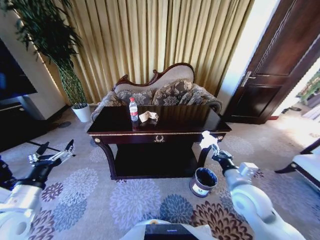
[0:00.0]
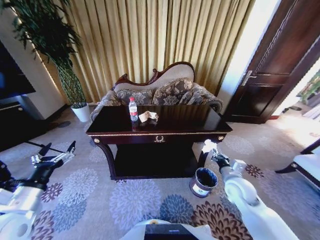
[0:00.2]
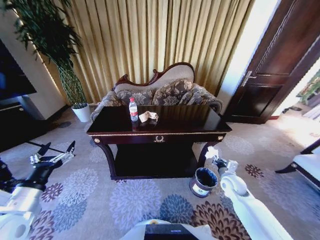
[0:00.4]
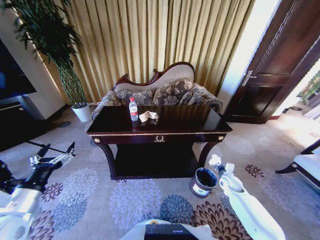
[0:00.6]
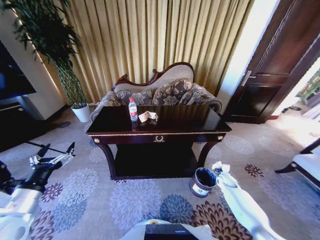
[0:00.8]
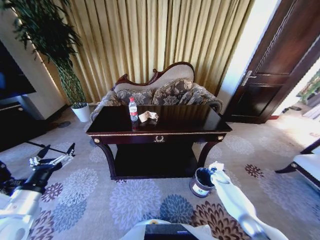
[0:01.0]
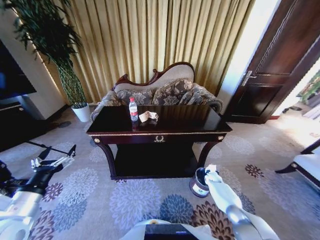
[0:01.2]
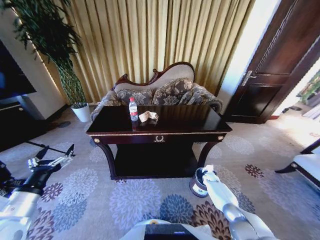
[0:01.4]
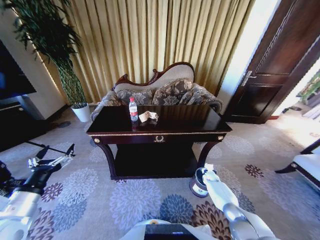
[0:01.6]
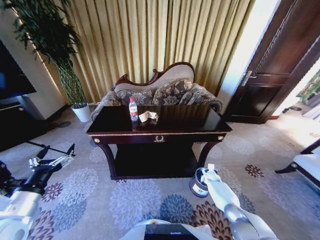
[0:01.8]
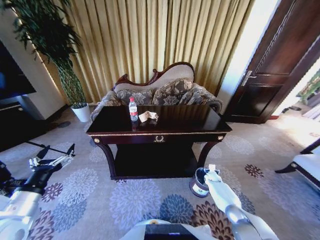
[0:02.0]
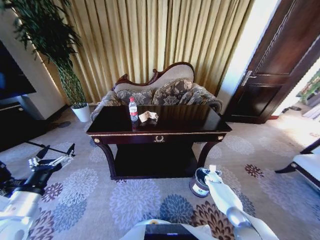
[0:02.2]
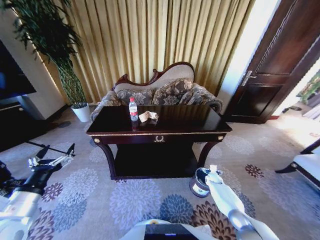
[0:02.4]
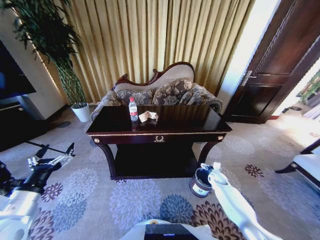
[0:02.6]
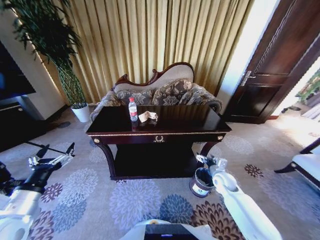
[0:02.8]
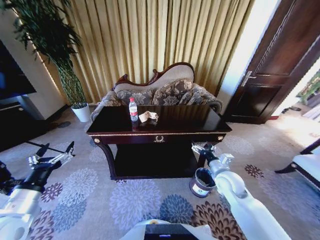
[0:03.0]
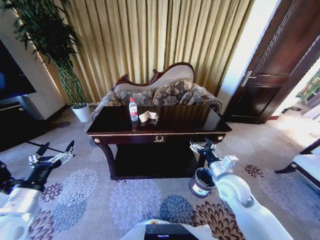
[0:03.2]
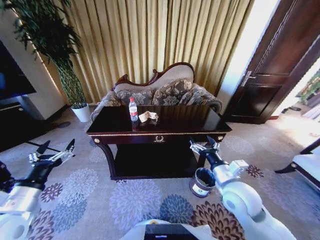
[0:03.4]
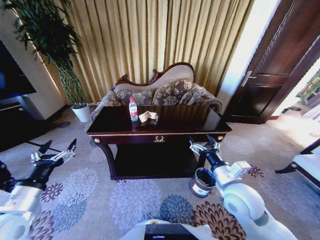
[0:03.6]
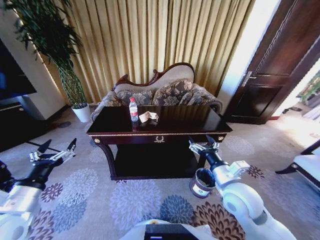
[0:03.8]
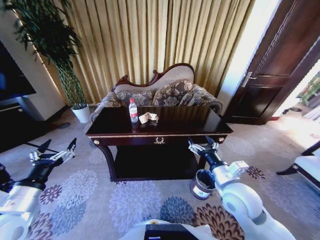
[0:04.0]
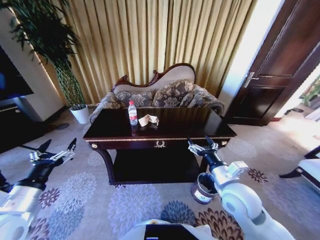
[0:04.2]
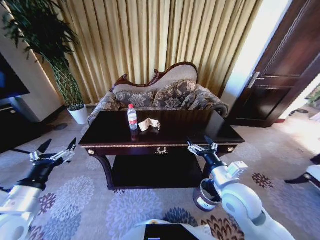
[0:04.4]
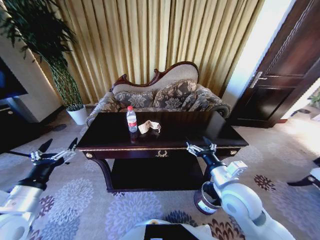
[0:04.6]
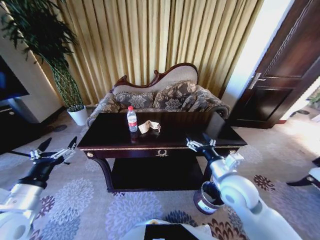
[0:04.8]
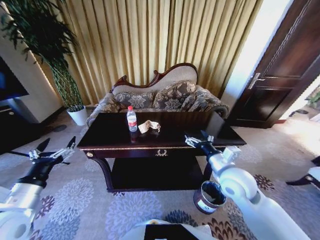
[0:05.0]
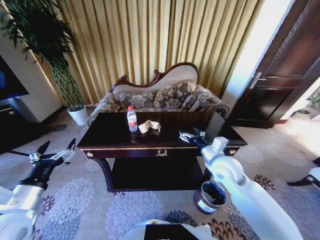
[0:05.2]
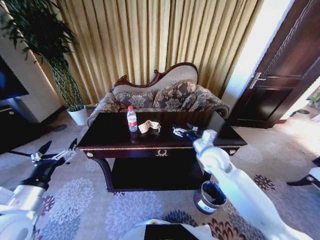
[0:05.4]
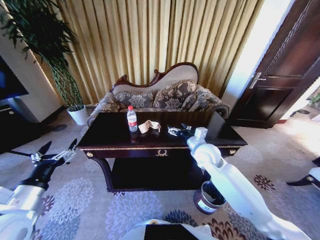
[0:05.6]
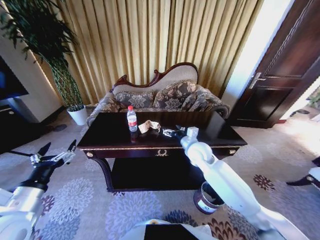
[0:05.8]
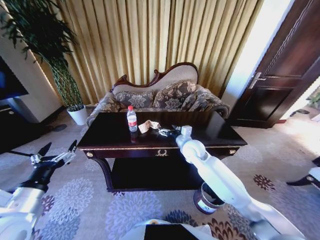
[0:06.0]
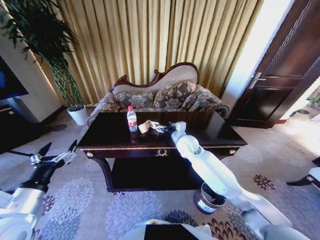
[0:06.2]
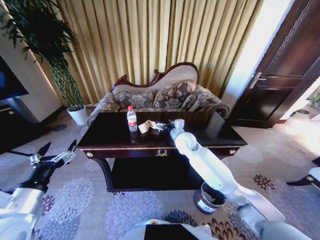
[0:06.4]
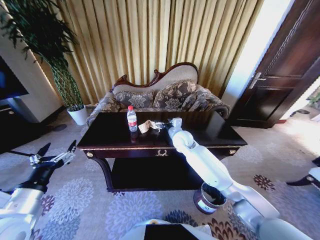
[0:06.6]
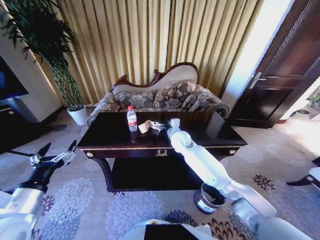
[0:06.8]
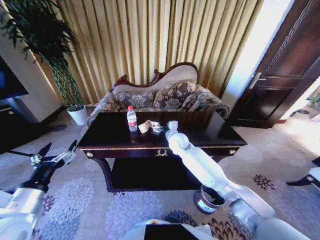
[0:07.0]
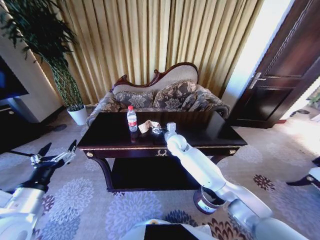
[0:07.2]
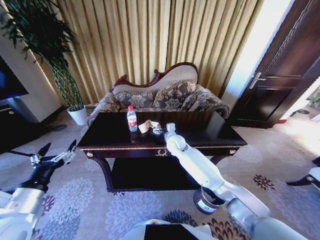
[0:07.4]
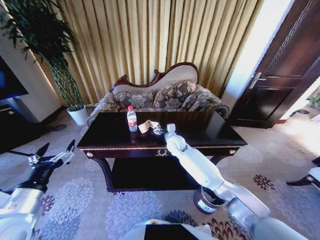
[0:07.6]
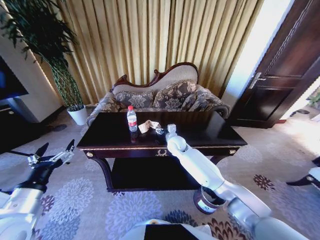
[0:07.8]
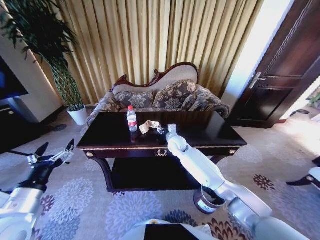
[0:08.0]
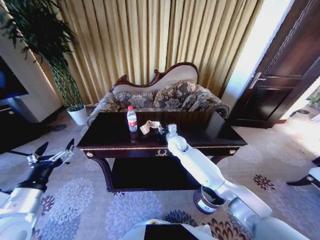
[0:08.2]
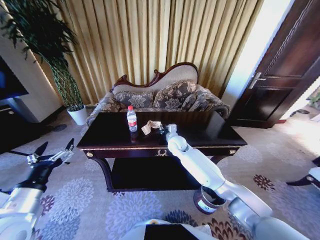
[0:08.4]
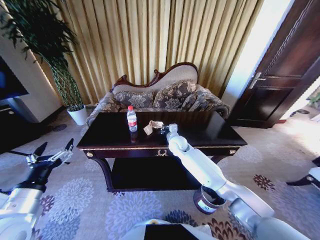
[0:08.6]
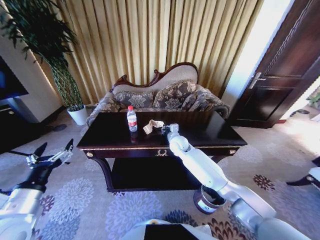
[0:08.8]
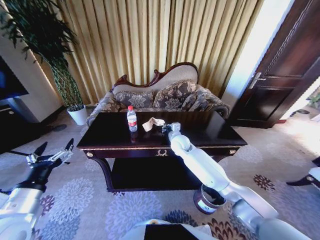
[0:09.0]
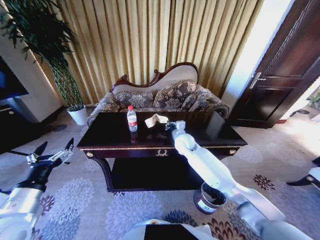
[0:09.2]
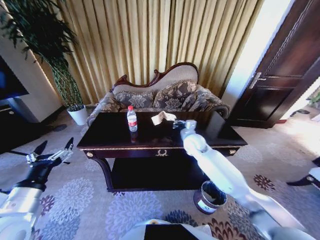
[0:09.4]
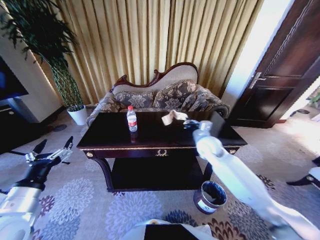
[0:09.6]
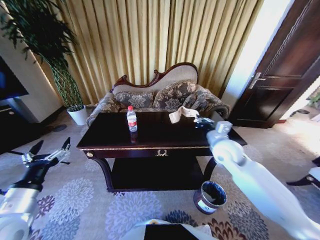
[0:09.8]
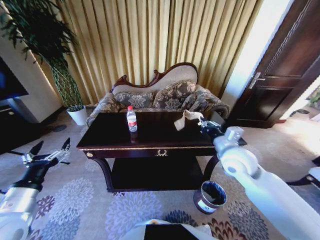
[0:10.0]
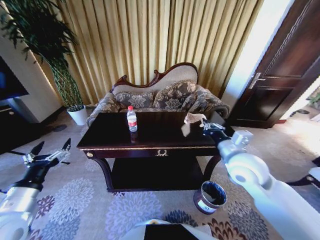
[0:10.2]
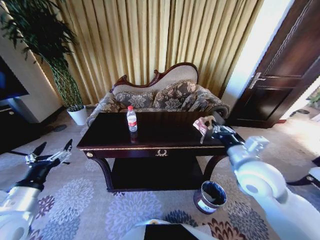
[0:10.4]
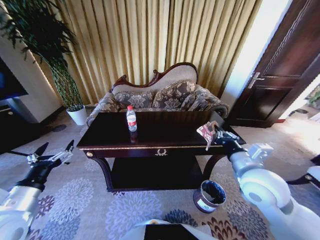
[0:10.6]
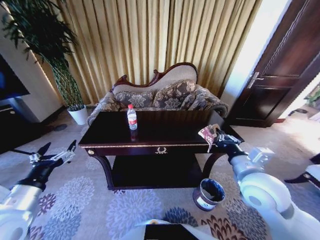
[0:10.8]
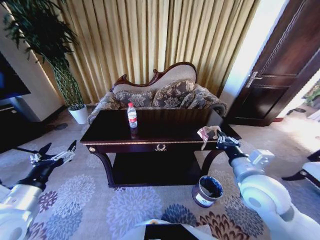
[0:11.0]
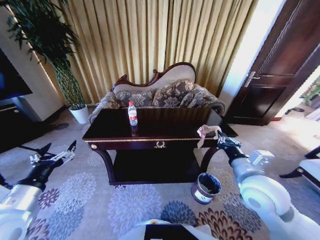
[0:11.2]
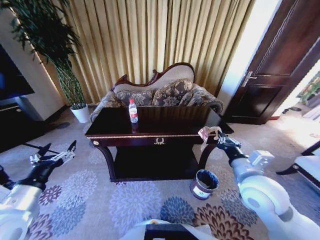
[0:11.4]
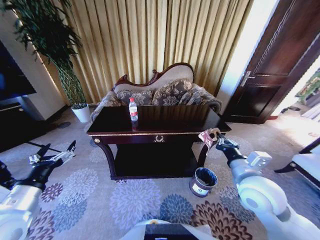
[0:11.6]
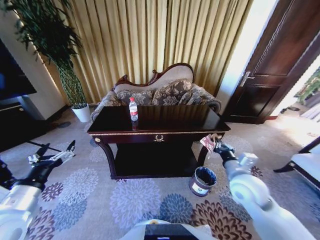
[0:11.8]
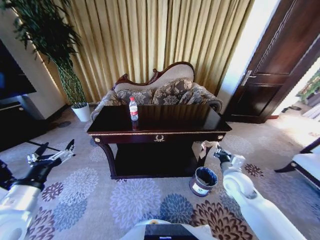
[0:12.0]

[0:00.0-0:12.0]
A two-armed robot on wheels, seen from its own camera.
Task of the whole recording: Move to the front of the table and place the trash on the table into the trash bin.
0:00.0 to 0:01.6: The right gripper is displaced downward and forward by about 40 cm.
0:01.6 to 0:03.0: The right gripper moves upward and backward, about 30 cm, and opens up.
0:03.0 to 0:04.4: The right gripper is displaced upward, backward and to the left by approximately 15 cm.
0:04.4 to 0:06.0: The right gripper travels forward and to the left by about 20 cm.
0:06.0 to 0:07.6: The right gripper heads forward and to the left, covering approximately 10 cm.
0:07.6 to 0:09.0: The right gripper closes.
0:09.0 to 0:10.4: The right gripper moves backward, to the right and upward, roughly 30 cm.
0:10.4 to 0:12.0: The right gripper is displaced downward by approximately 15 cm.

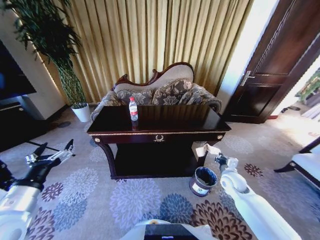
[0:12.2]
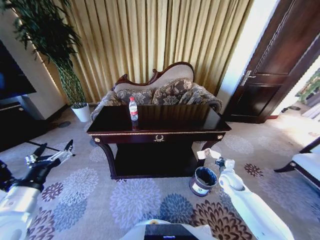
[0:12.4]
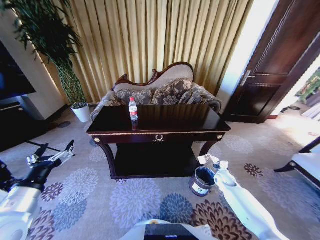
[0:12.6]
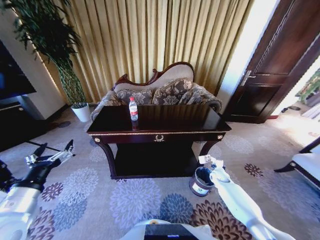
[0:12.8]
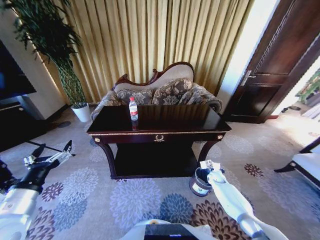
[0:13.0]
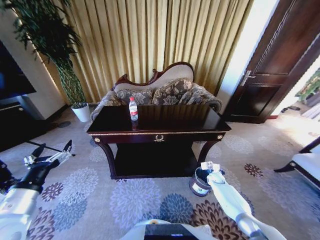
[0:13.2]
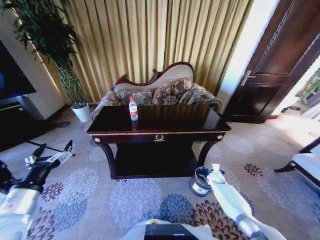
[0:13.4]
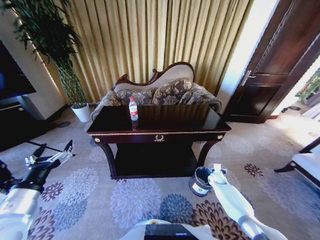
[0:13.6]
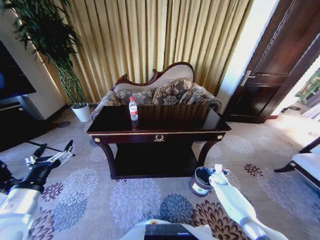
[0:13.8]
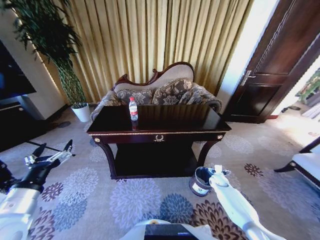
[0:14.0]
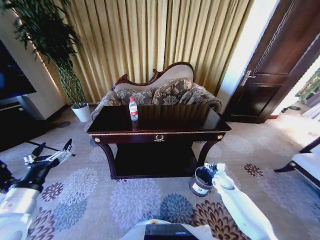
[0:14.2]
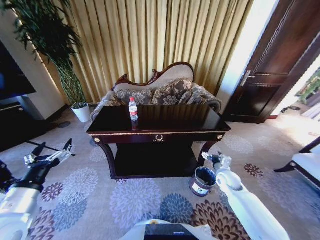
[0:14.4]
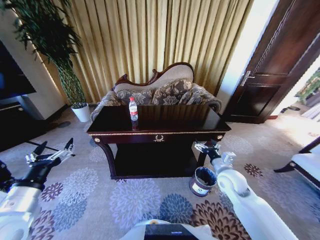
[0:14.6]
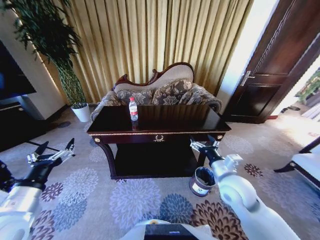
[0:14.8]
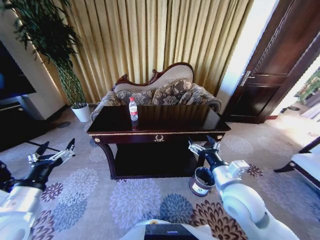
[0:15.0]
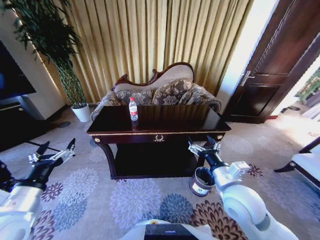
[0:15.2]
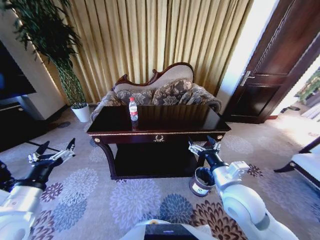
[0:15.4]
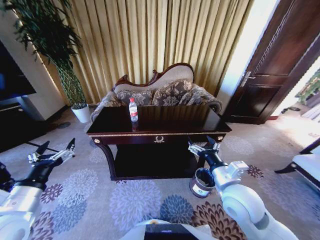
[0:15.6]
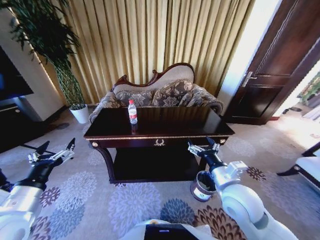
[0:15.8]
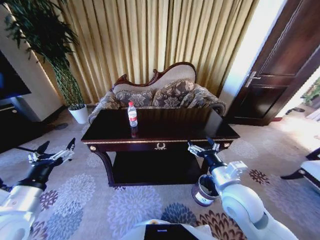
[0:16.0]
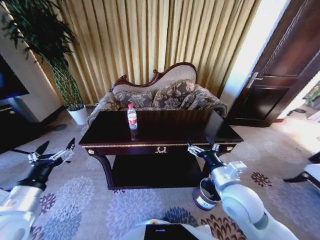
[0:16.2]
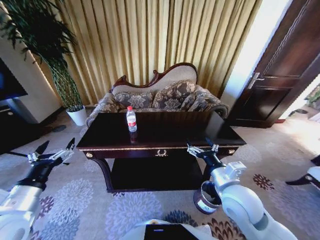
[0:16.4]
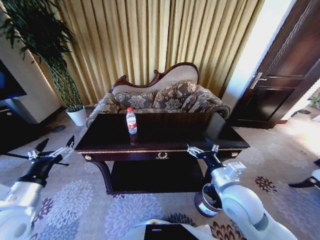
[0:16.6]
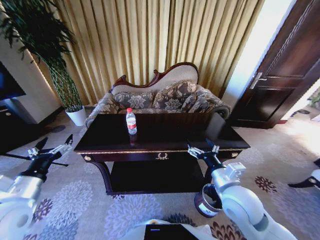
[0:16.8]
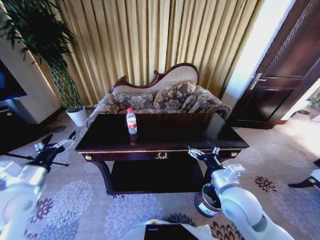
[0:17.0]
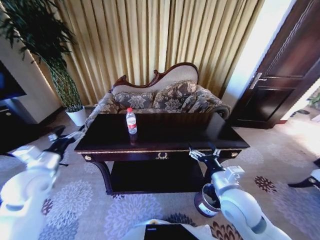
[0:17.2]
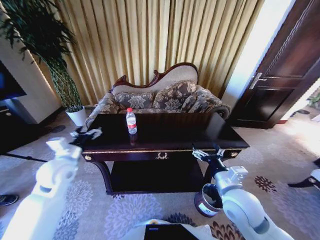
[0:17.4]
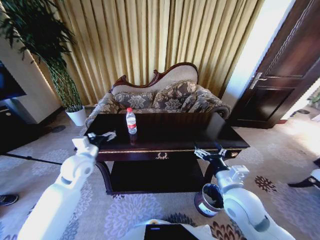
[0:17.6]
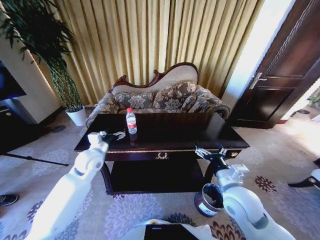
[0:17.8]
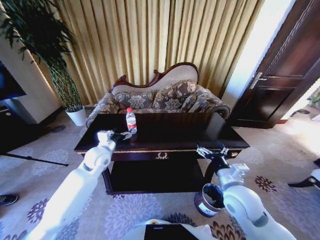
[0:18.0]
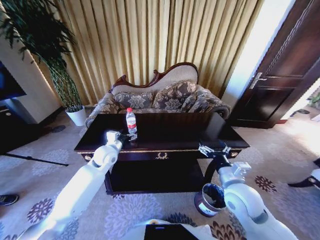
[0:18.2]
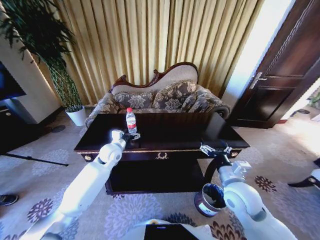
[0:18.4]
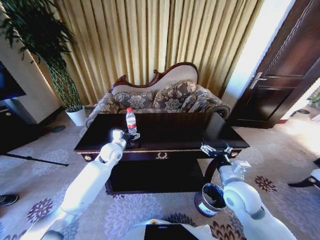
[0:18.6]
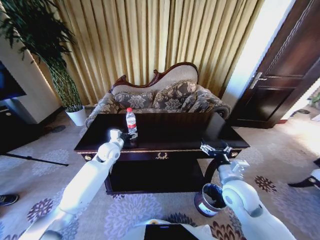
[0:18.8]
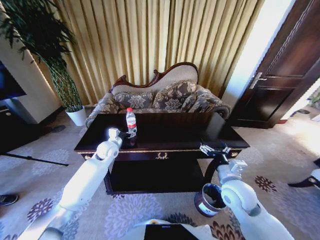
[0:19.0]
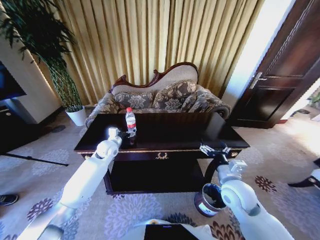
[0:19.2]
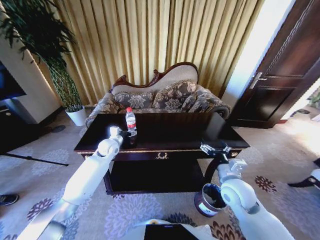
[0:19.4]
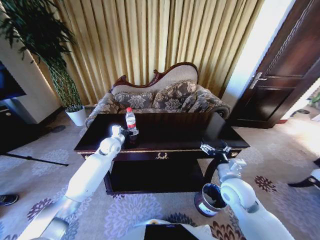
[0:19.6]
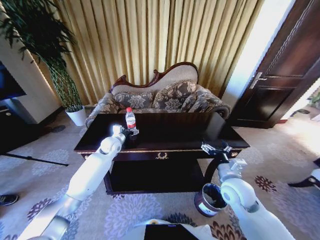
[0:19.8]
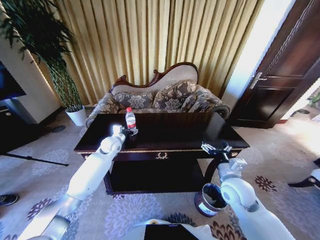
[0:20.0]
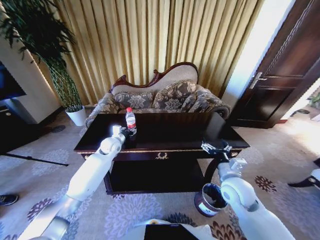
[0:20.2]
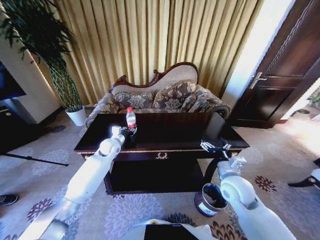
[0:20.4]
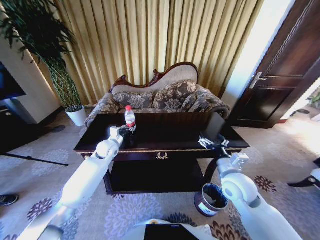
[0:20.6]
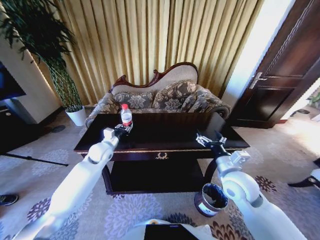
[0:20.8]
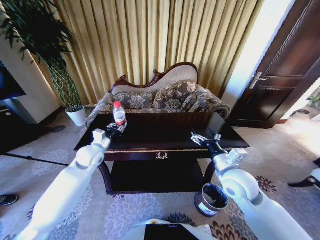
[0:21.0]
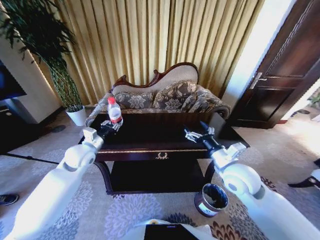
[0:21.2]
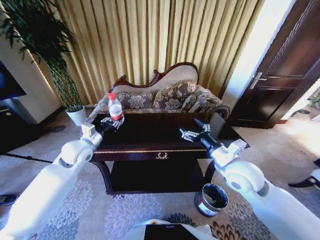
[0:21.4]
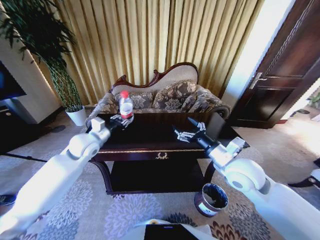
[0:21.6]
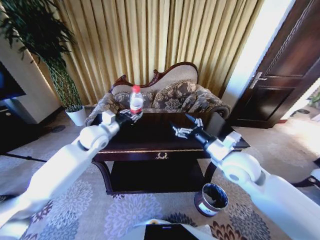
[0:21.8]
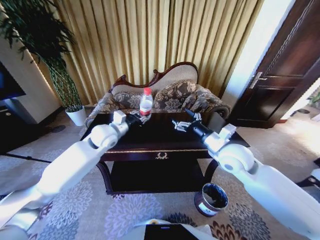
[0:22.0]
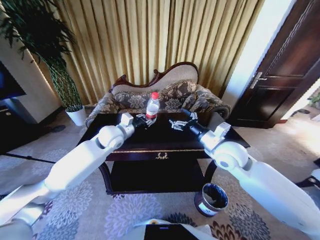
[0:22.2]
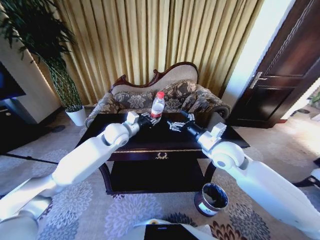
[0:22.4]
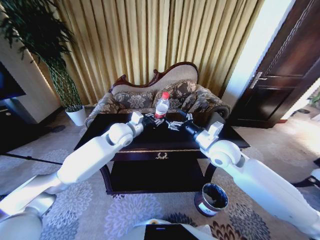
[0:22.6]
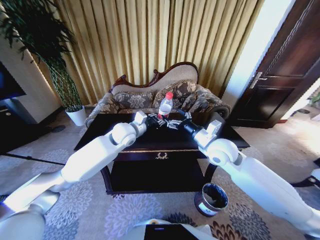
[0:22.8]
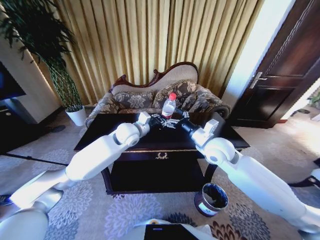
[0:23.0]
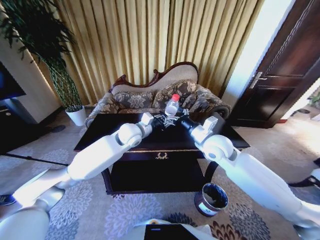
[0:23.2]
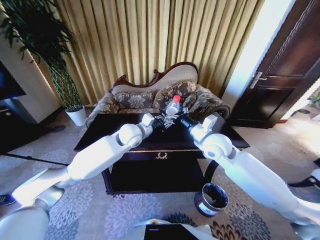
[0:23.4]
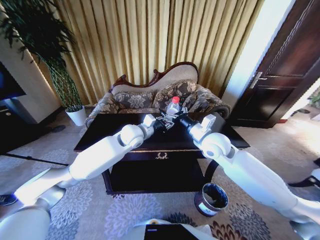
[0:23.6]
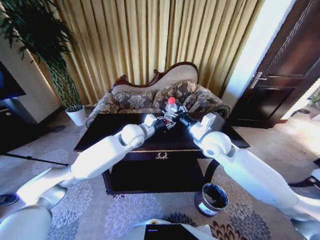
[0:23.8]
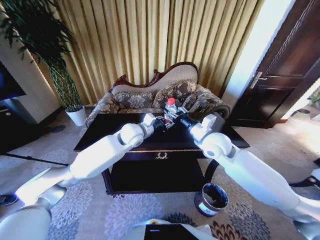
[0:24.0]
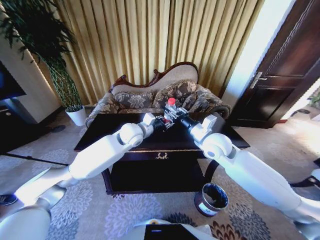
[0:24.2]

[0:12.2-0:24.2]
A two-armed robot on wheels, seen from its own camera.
Task of the whole recording: Move to the front of the table and place the trash on the table into the trash bin.
0:12.2 to 0:13.8: The right gripper is displaced downward and forward by about 15 cm, and opens up.
0:13.8 to 0:15.2: The right gripper is displaced upward, backward and to the left by approximately 40 cm.
0:16.6 to 0:18.2: The left gripper is displaced forward and to the right by some 30 cm.
0:18.2 to 0:19.8: The left gripper goes approximately 5 cm forward.
0:19.8 to 0:21.2: The left gripper moves backward, to the left and upward, roughly 15 cm, and closes its fingers. Meanwhile the right gripper shifts approximately 5 cm upward.
0:21.2 to 0:22.6: The left gripper shifts some 15 cm to the right and forward; the right gripper shifts some 10 cm forward.
0:22.6 to 0:24.2: The right gripper closes up.
